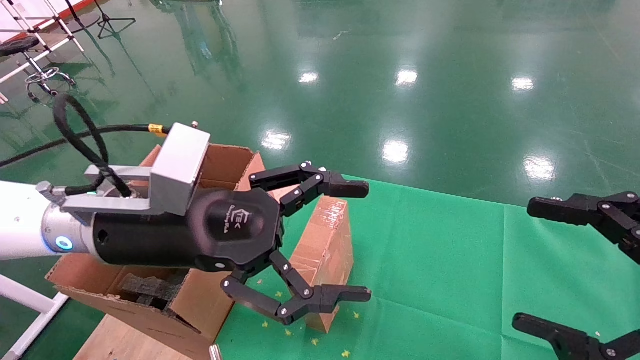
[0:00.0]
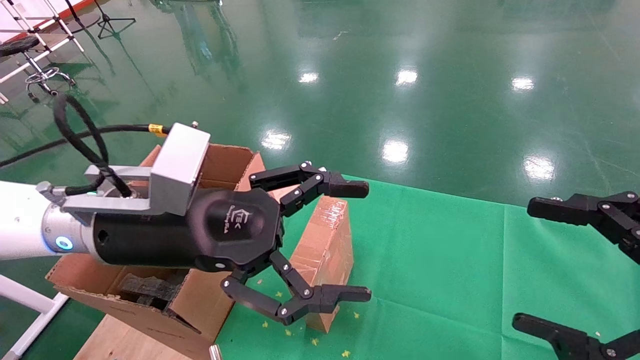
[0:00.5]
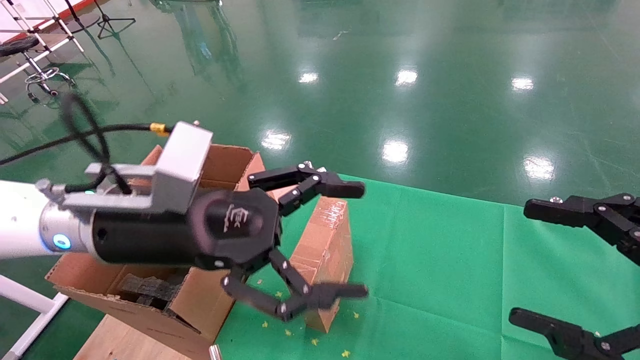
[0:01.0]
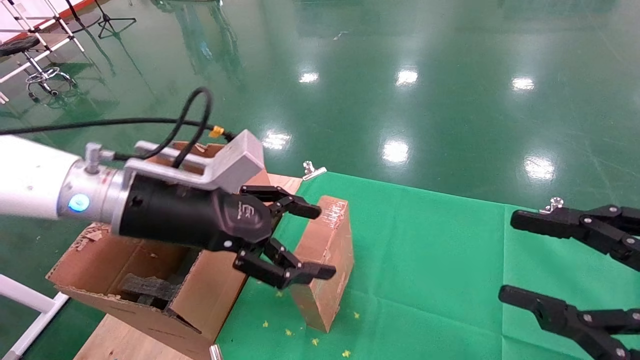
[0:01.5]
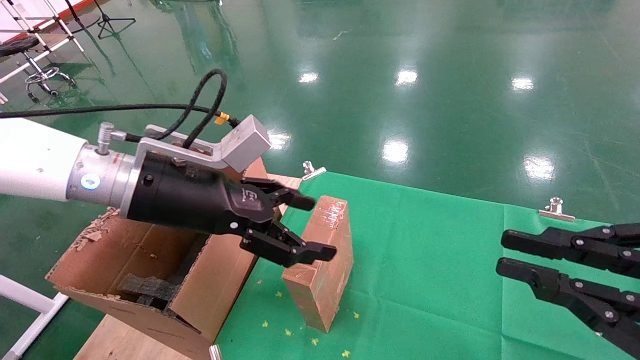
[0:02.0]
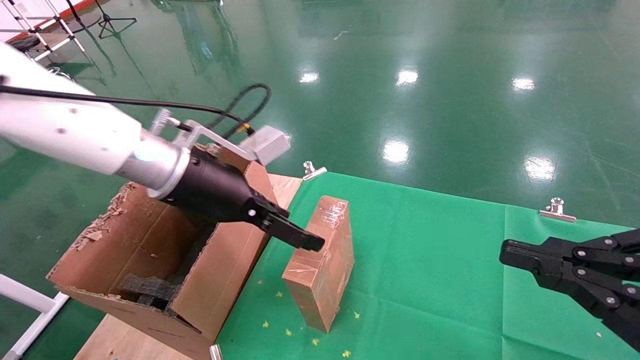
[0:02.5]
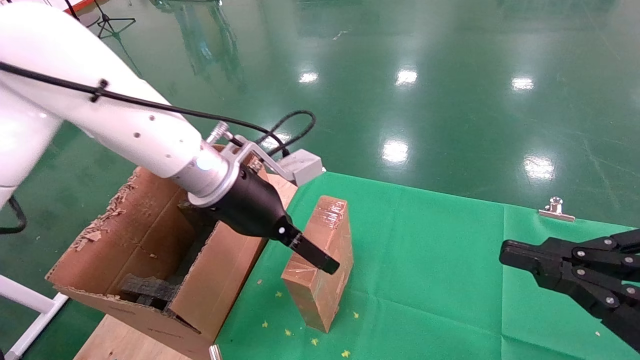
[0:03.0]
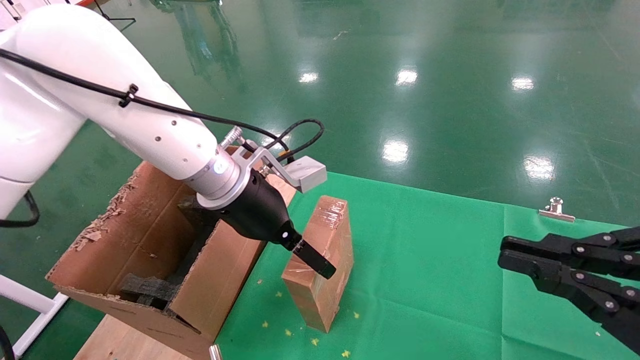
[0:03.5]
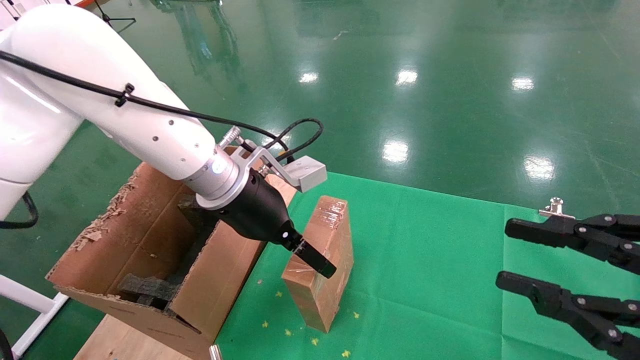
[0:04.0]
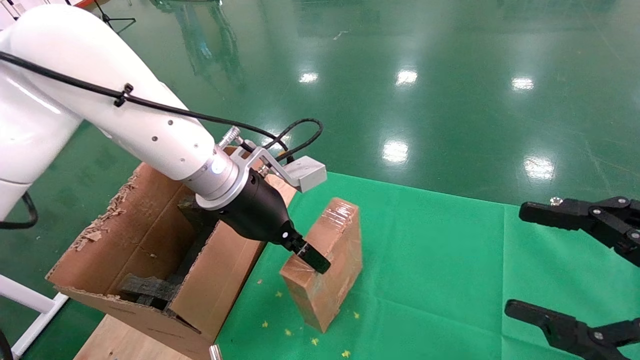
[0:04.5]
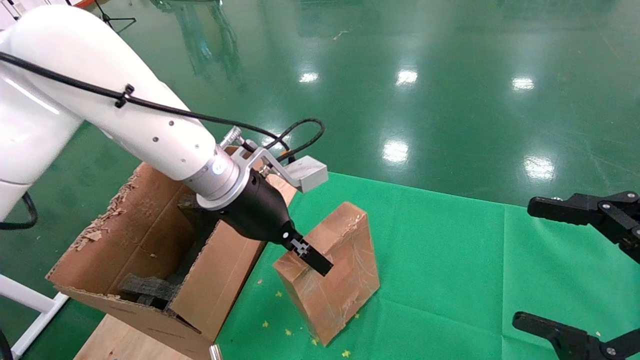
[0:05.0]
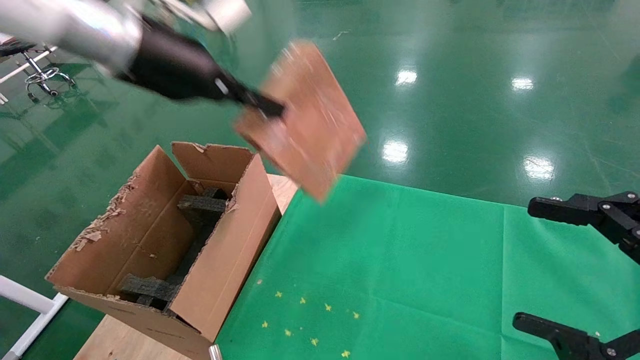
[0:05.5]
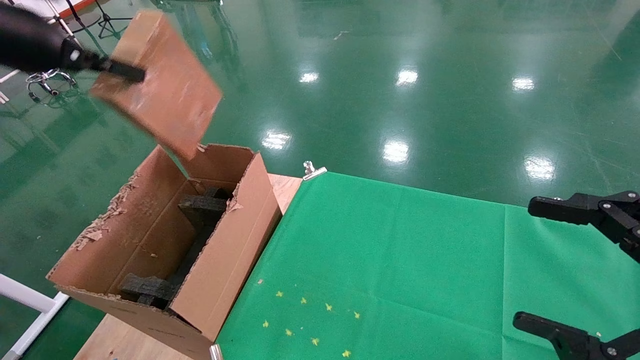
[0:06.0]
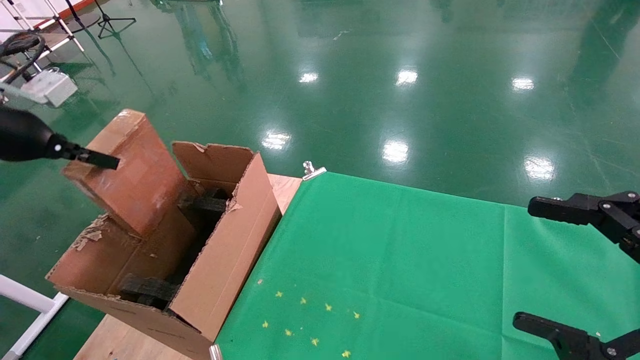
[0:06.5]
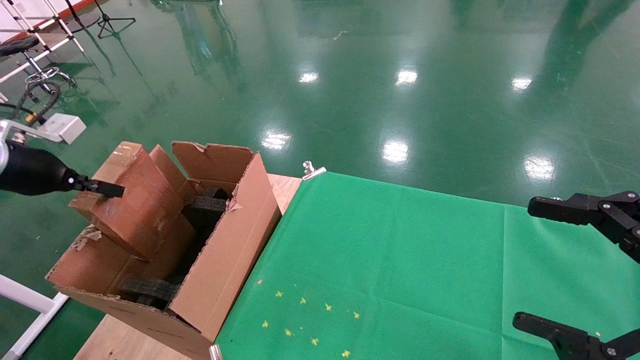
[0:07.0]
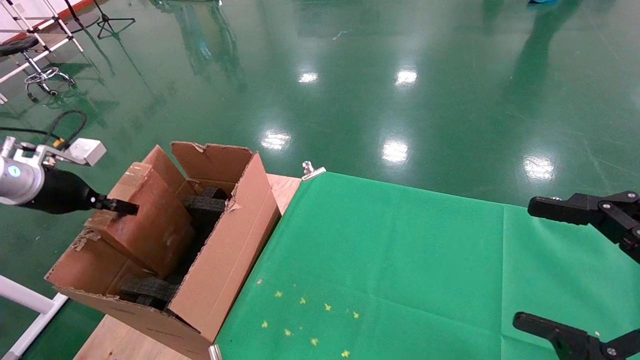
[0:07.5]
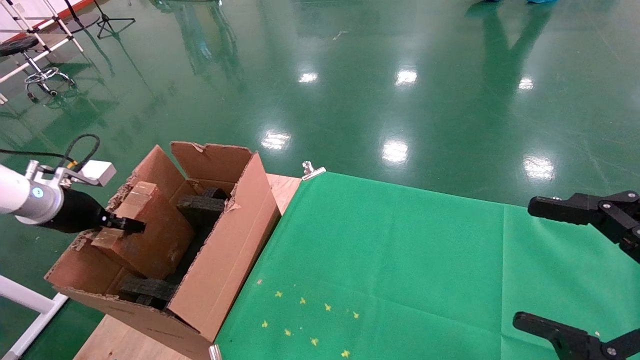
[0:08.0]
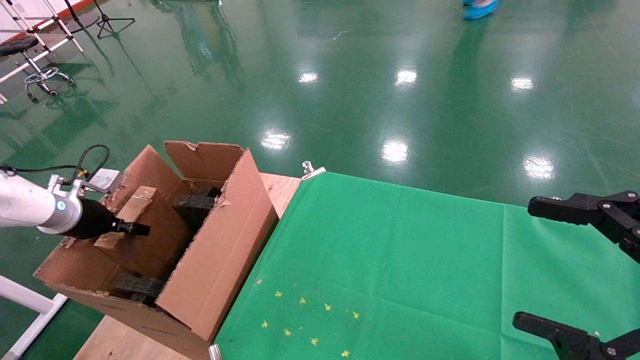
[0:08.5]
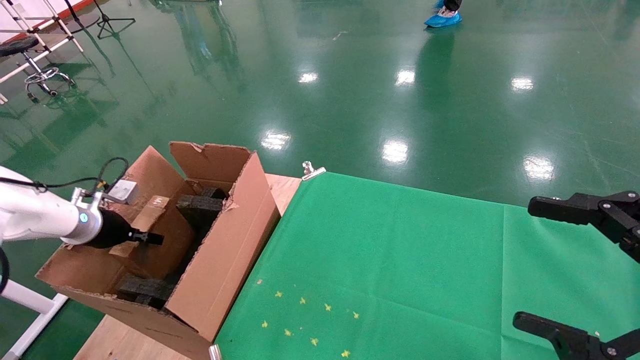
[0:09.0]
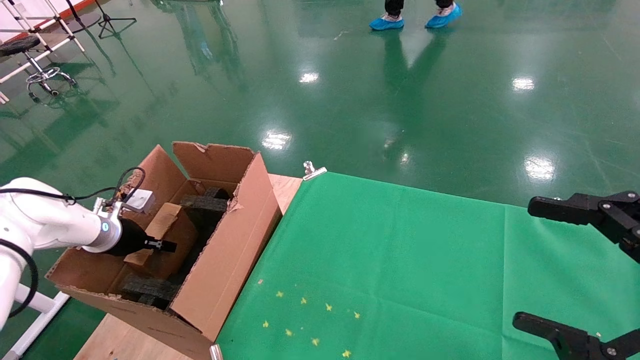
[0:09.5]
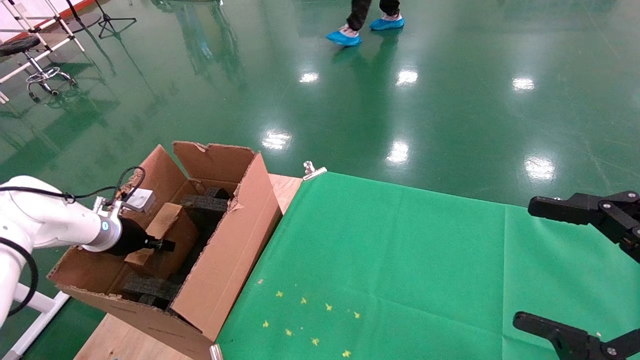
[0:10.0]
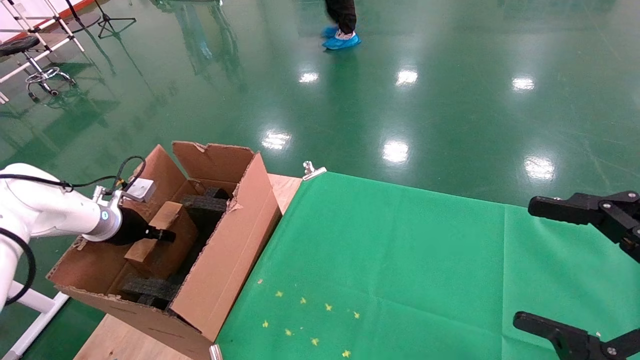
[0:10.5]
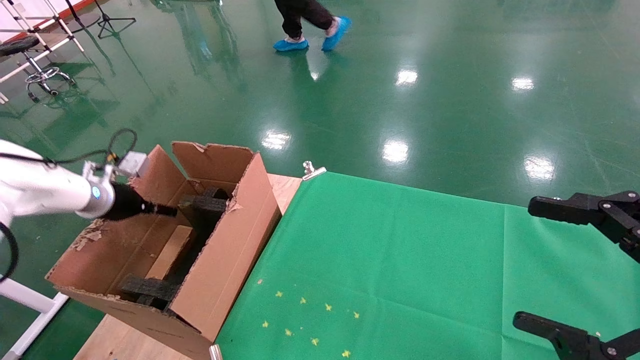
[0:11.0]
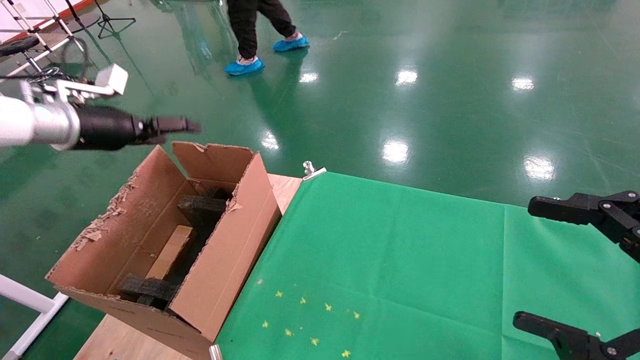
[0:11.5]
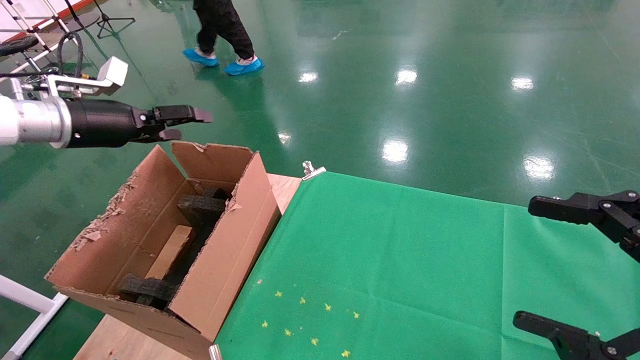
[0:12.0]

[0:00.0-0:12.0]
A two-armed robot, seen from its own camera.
Task of the whole recording: using a robotic arm to pick up a cardboard box and palace it the carton.
Step, 1.5 to 4.5 s: Pick up the mouse and the power cord paper box.
Step, 5.0 to 11.0 s: Place the mouse and the power cord paper box into the container.
0.0 to 2.0 s: The left gripper goes about 5 cm forward. The right gripper closes up.
2.0 to 4.0 s: The left gripper is displaced to the right and forward by some 10 cm.
4.0 to 6.0 s: The left gripper goes roughly 30 cm to the left and upward, and closes its fingers. The right gripper opens.
6.0 to 8.0 s: The left gripper is displaced downward and to the left by some 25 cm.
8.0 to 10.0 s: The left gripper goes approximately 10 cm downward and forward.
10.0 to 12.0 s: The left gripper goes approximately 20 cm upward, and opens its fingers.

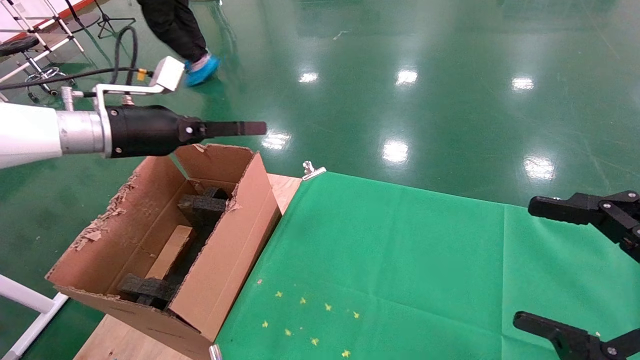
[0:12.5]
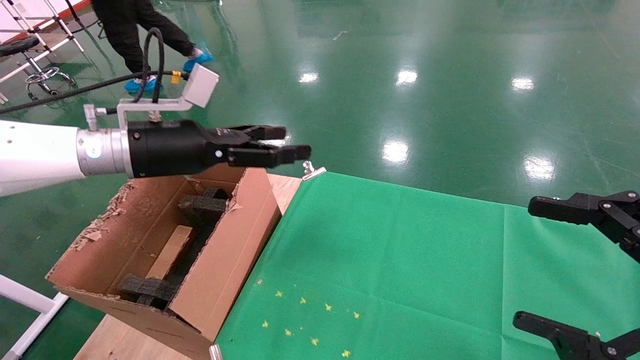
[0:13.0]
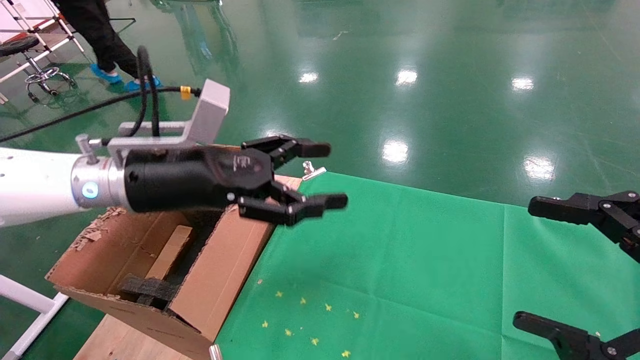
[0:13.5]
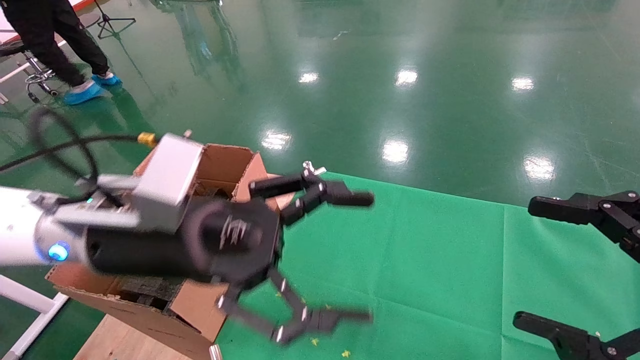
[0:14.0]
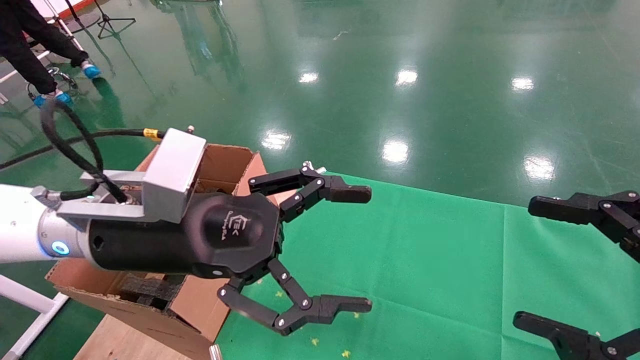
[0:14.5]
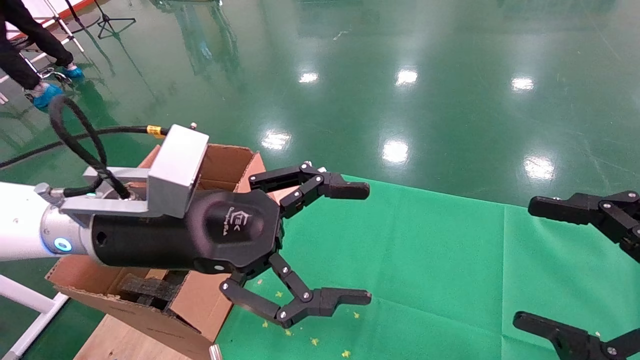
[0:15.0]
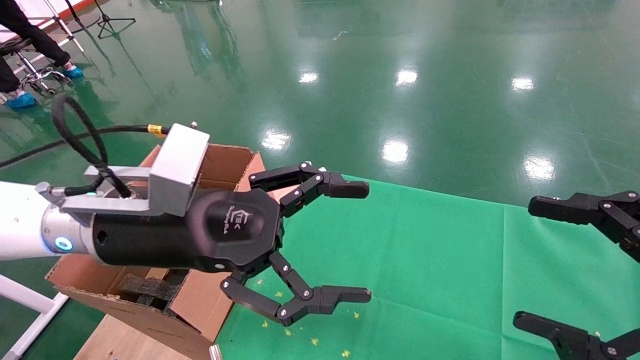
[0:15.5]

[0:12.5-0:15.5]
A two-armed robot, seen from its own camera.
Task of the whole recording: using a robotic arm to pick up a cardboard box and palace it the carton.
12.5 to 14.0 s: The left gripper goes roughly 20 cm to the right and backward.
14.0 to 15.5 s: The two grippers keep their place.

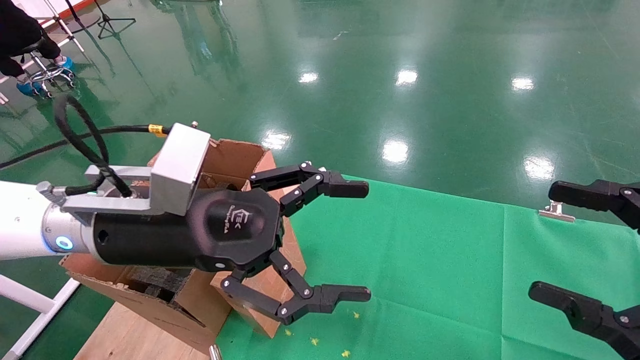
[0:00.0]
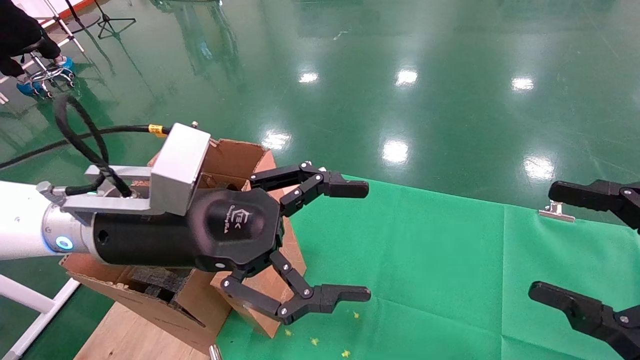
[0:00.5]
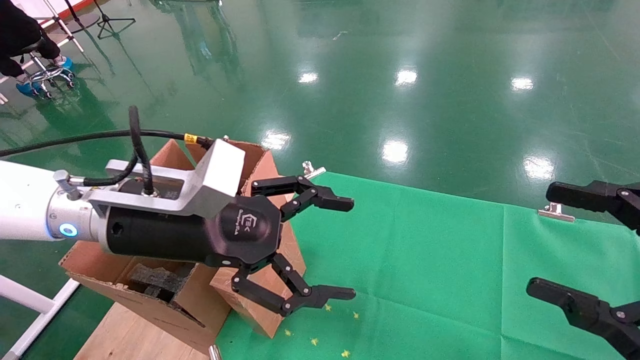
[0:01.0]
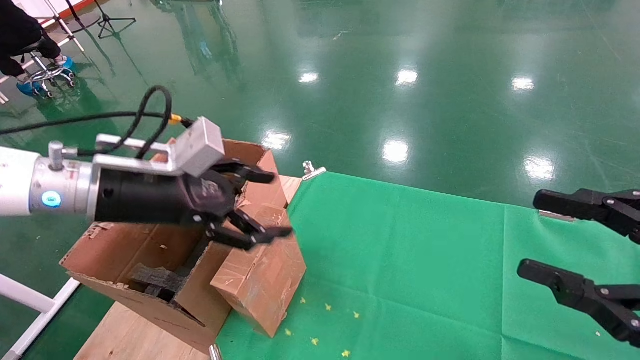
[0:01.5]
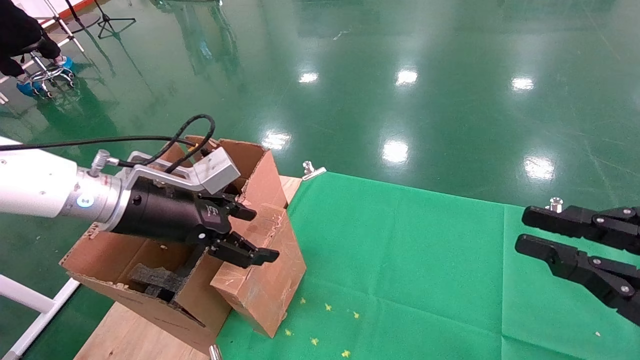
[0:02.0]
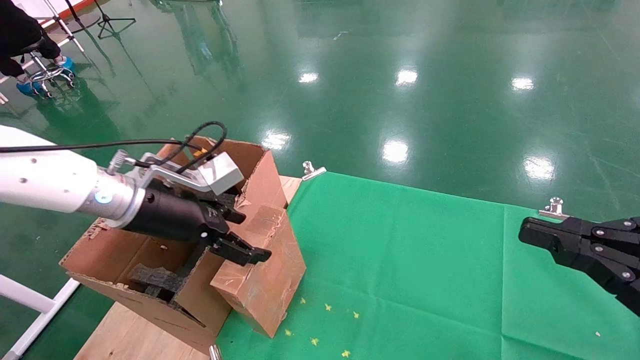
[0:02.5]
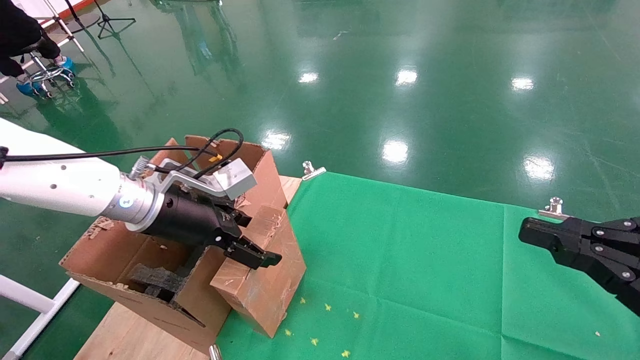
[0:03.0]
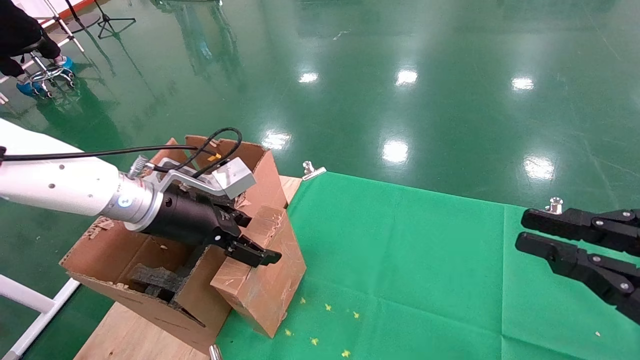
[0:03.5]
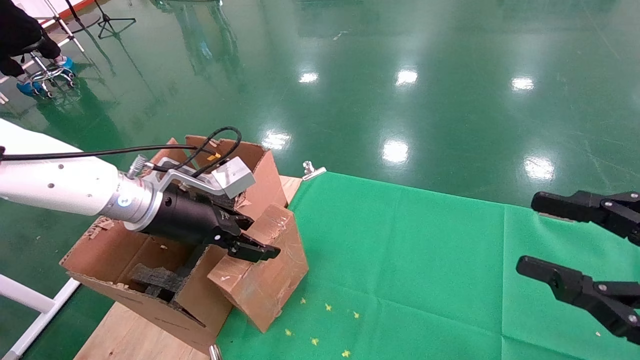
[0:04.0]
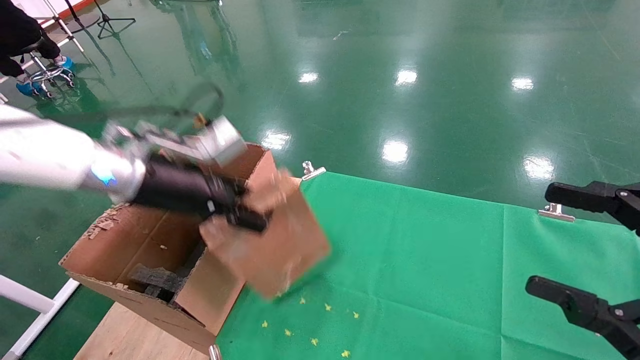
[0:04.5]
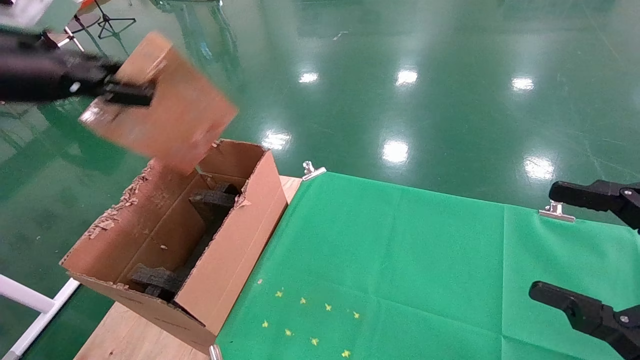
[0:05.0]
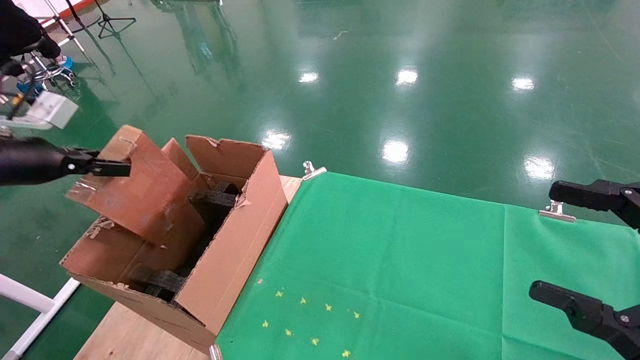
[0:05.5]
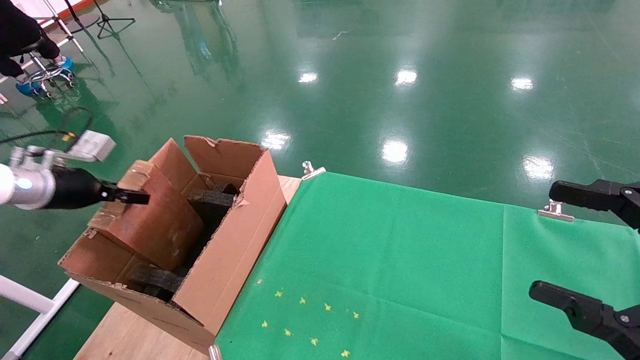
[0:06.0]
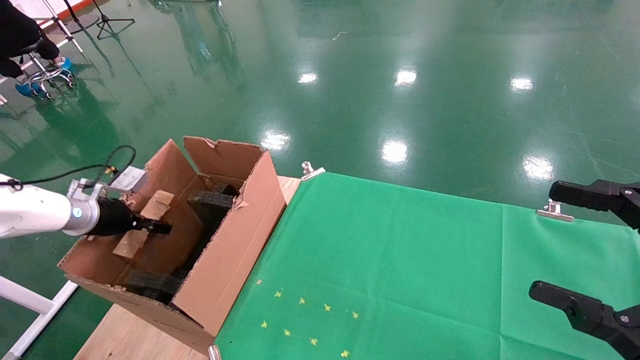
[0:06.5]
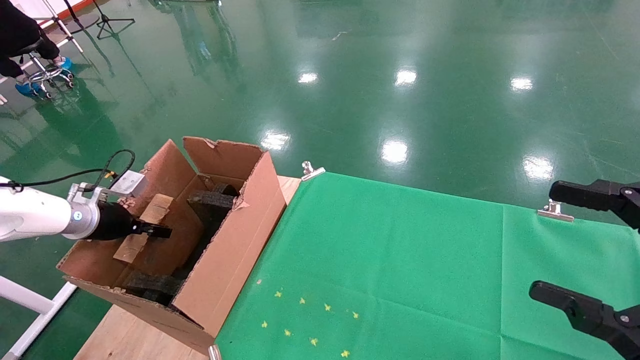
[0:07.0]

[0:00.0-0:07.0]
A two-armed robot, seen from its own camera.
Task of the whole recording: using a robotic arm to pick up a cardboard box and palace it the carton.
Step, 1.0 to 4.0 s: Pick up the mouse and the power cord paper box.
0.0 to 2.0 s: The left gripper moves to the left and forward, approximately 10 cm. Meanwhile the right gripper closes.
2.0 to 3.5 s: The grippers stay close to where they were, moving slightly.
3.5 to 5.0 s: The left gripper travels to the left and upward by about 20 cm, and closes its fingers, while the right gripper opens up.
5.0 to 7.0 s: The left gripper shifts approximately 25 cm downward and forward.
